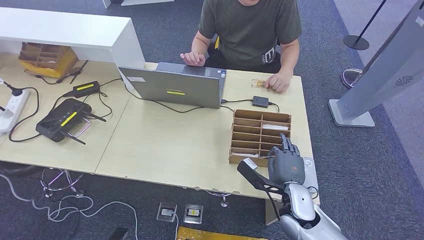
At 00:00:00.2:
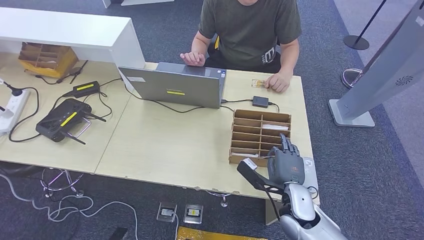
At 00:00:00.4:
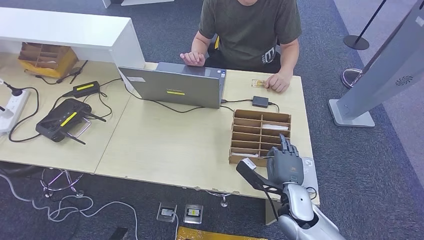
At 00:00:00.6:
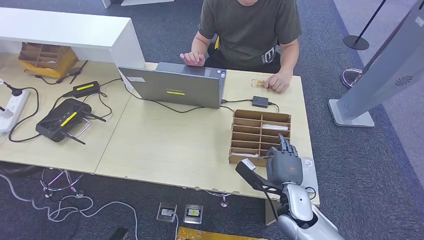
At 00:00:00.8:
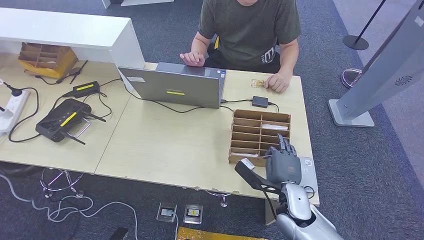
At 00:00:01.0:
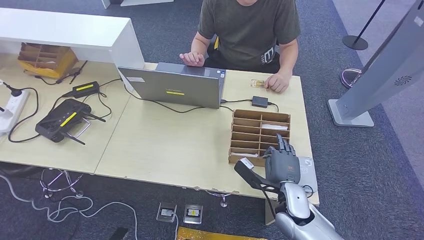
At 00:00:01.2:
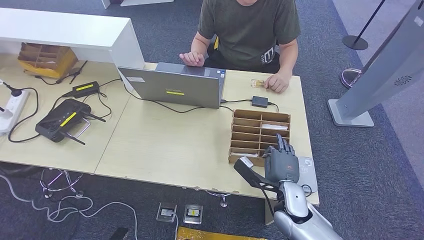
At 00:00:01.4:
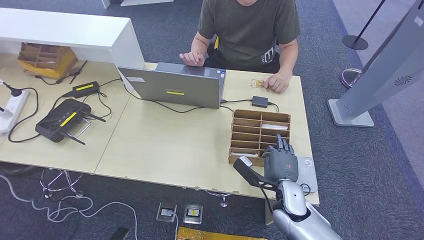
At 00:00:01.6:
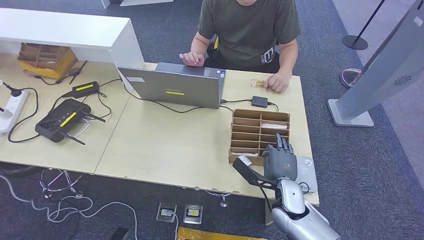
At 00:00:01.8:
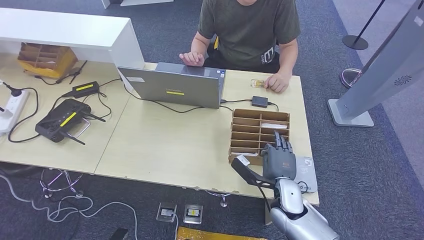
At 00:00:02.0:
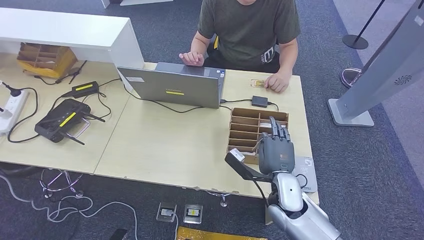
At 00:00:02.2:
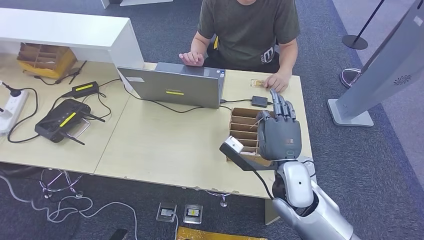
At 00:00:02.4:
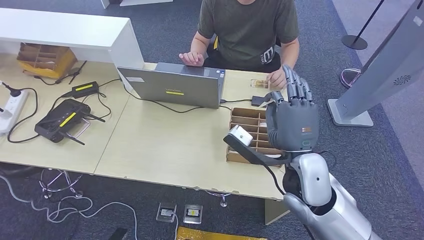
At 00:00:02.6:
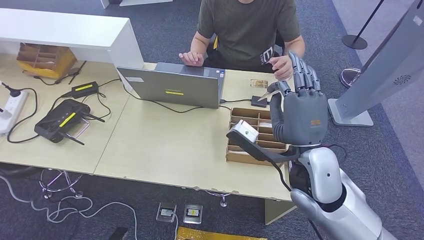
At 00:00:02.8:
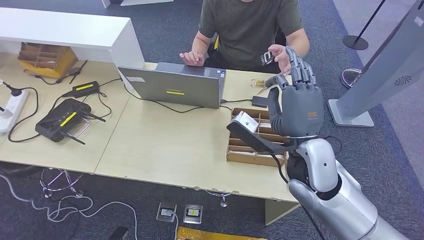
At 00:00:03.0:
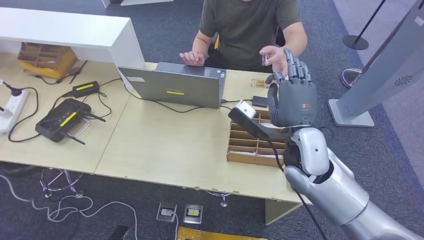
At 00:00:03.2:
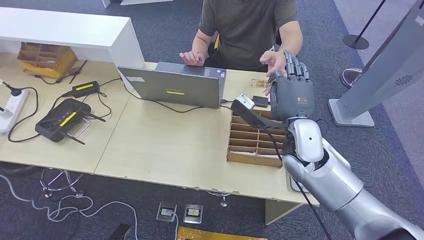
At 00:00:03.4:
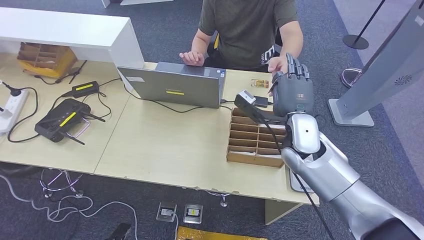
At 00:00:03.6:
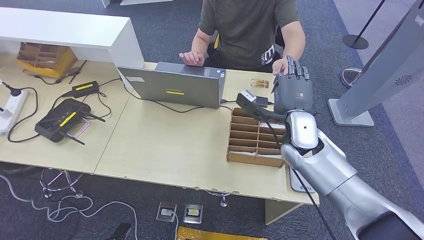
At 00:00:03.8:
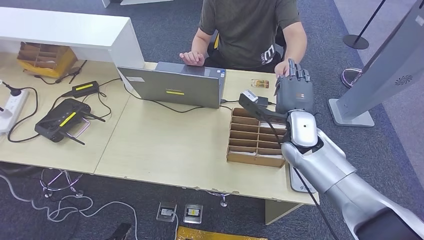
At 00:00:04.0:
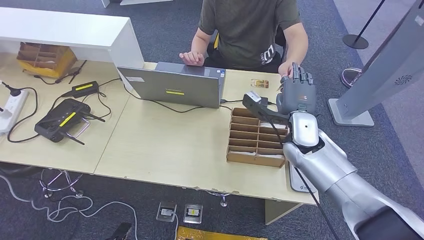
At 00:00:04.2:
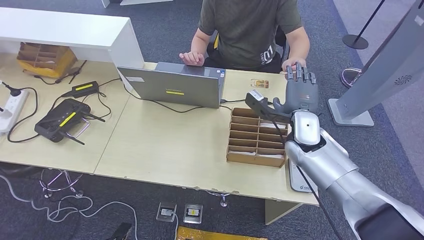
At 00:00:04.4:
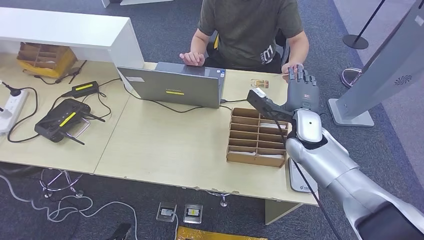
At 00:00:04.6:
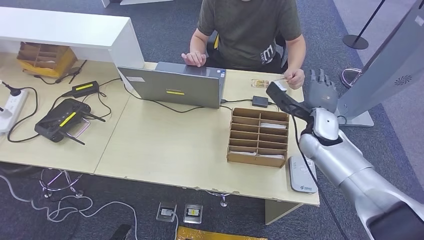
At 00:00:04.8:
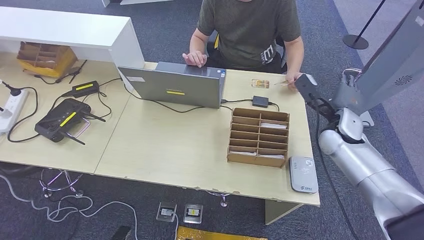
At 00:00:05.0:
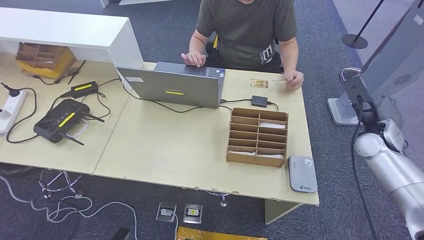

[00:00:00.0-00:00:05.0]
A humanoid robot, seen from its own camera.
Step, 00:00:00.0 to 00:00:03.0: Pick up the room key from the key card box.
Step, 00:00:03.2 to 00:00:05.0: Hand the room key to the person.
00:00:00.0 to 00:00:01.6: The hands make only small movements.
00:00:01.6 to 00:00:03.4: The right hand shifts roughly 20 cm upward and forward.
00:00:03.4 to 00:00:05.0: The right hand is displaced to the right by roughly 20 cm.
